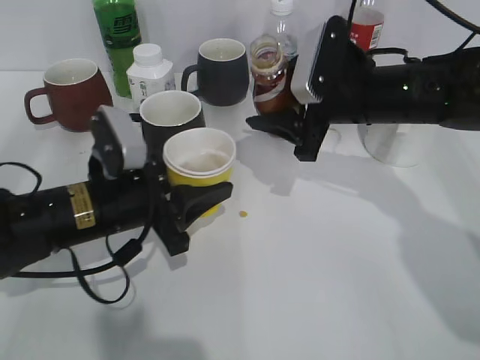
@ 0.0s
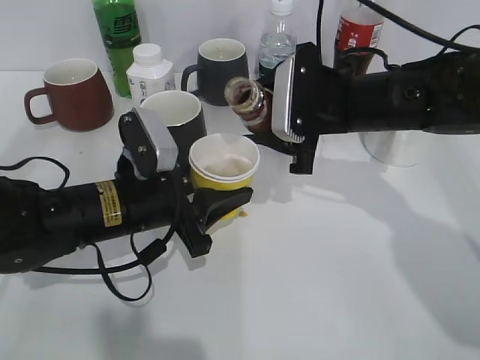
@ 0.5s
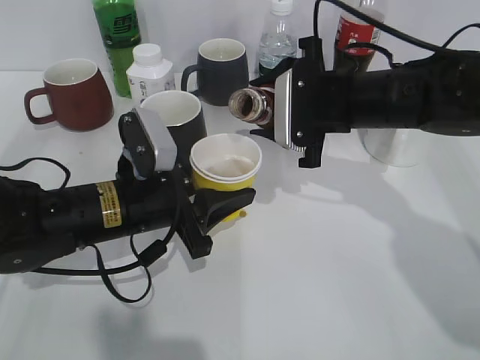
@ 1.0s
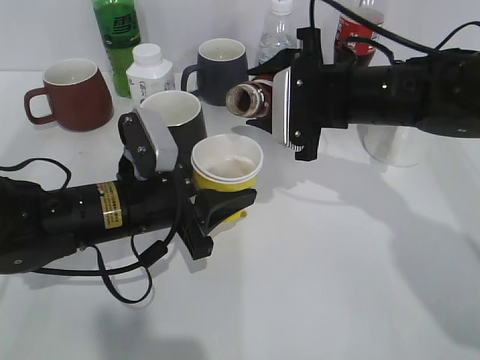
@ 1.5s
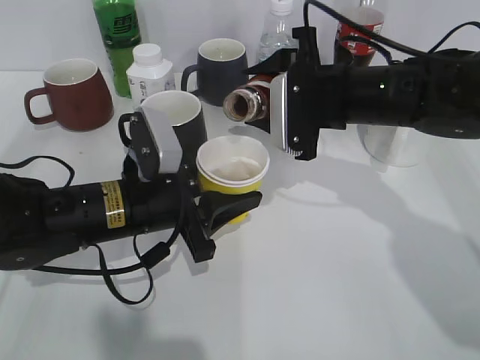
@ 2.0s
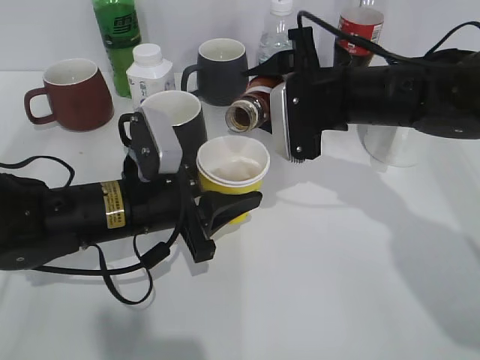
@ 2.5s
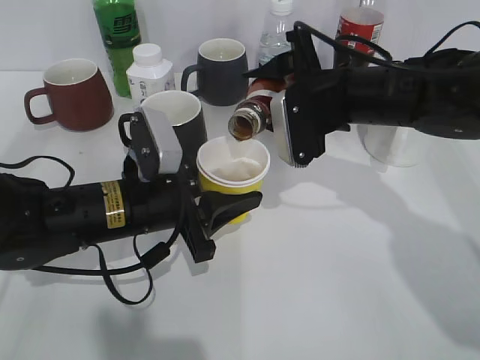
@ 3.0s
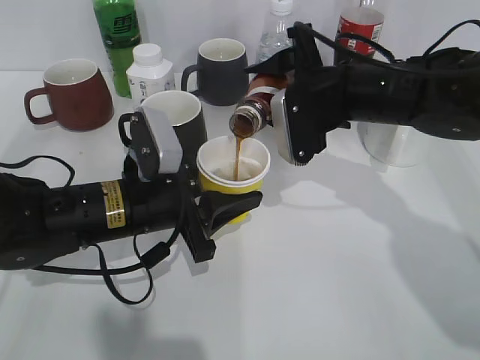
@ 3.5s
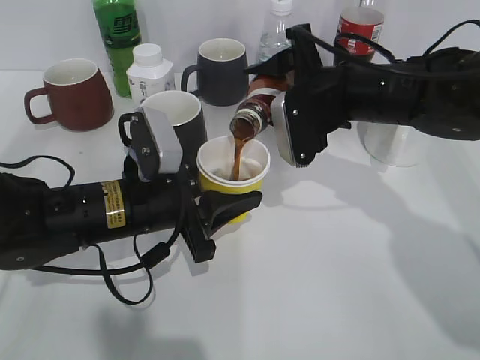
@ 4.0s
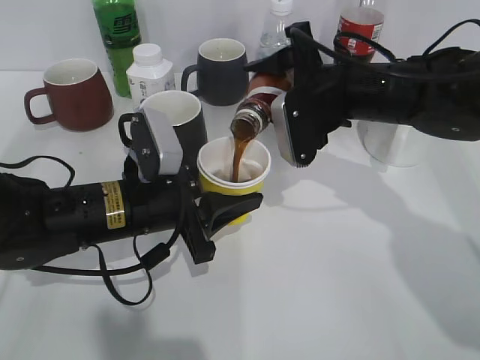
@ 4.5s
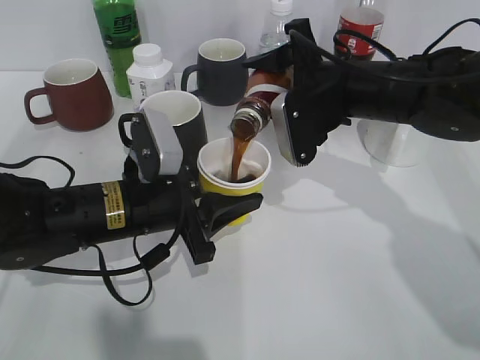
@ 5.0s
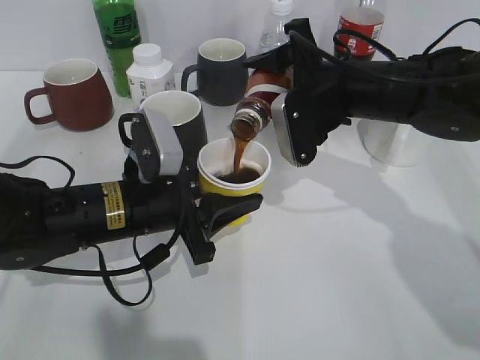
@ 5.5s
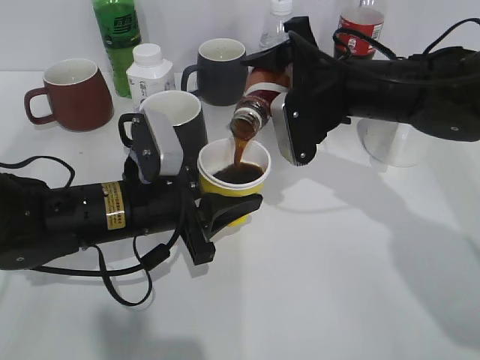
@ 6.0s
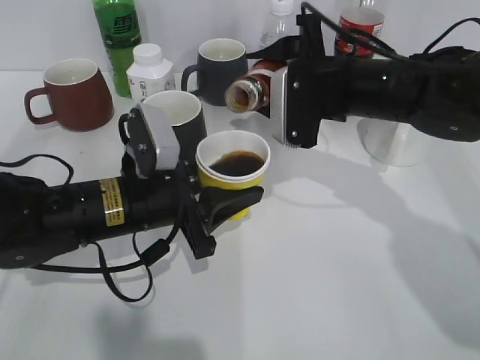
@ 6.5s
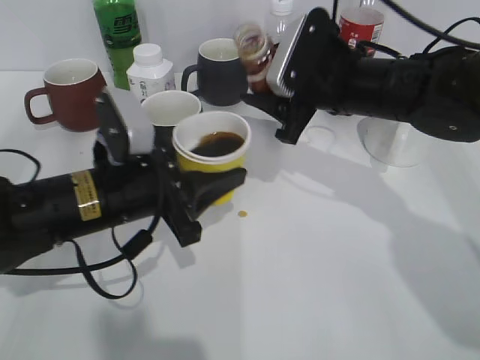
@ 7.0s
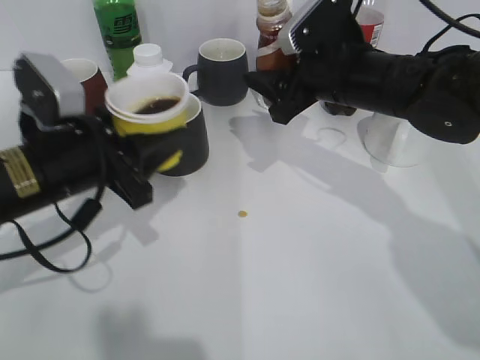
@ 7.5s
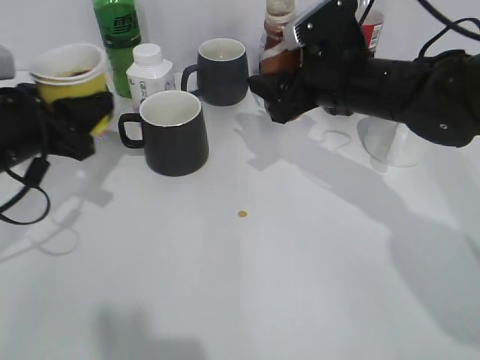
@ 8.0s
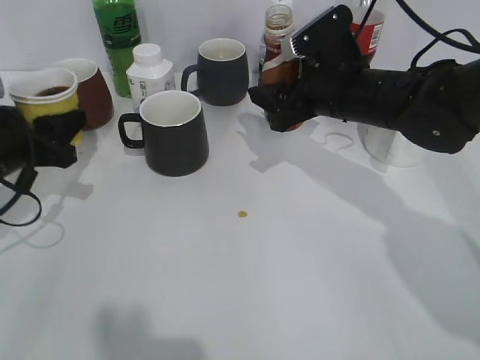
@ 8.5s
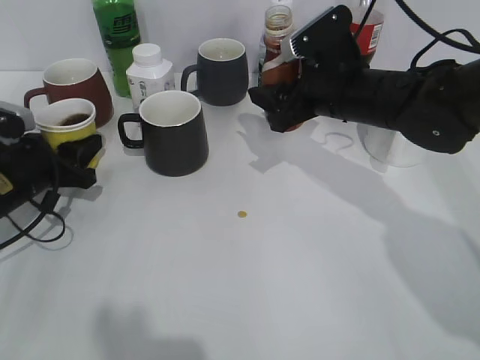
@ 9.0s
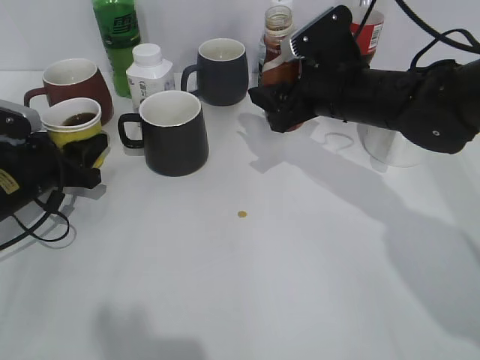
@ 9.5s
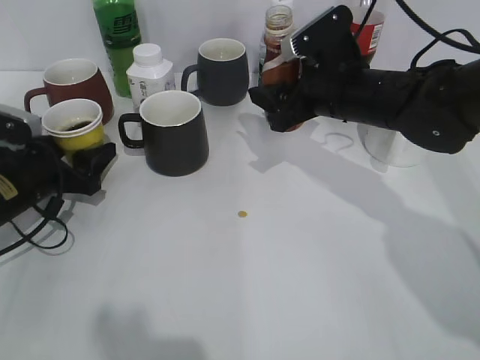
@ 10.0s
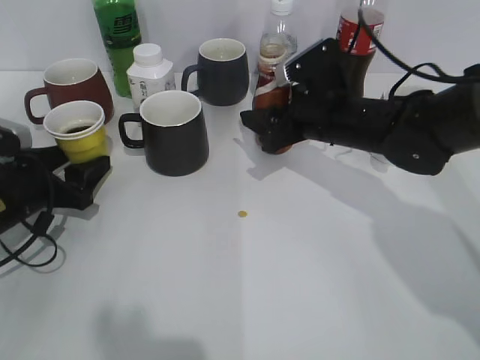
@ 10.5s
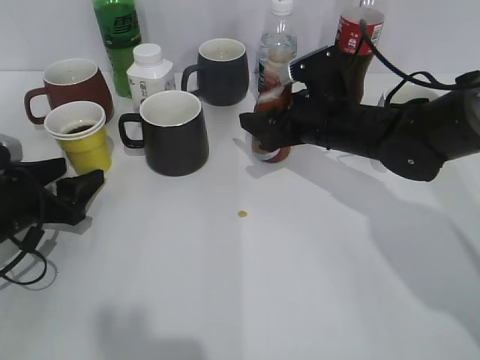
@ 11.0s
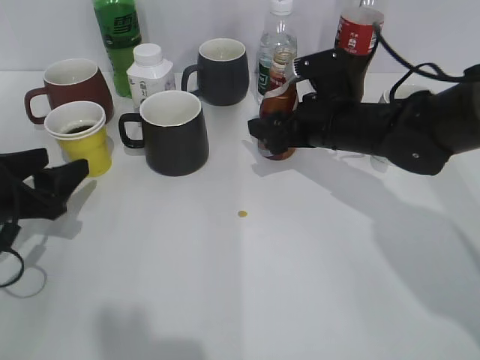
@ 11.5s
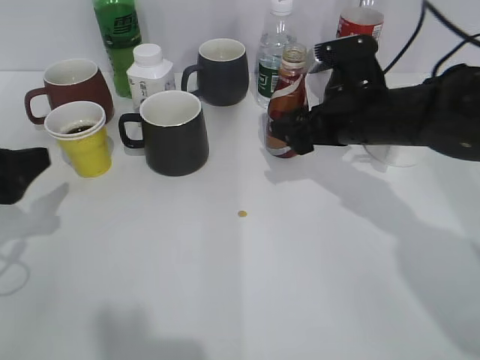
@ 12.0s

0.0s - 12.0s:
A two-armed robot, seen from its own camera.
Step, 0.0s - 6.0s: Pour the coffee from bottle to cup with right gripper.
Step, 7.0s - 10.0s: Place the yellow paper cup on the table with left gripper.
2.0s - 4.0s: The grippers stay close to where they were, moving slightly.
4.0s - 6.0s: The grippers move only a little.
6.0s - 8.0s: The left gripper is displaced to the left and upward by about 15 cm.
8.0s - 10.0s: The left gripper goes about 10 cm downward, and opens.
10.0s - 12.0s: The left gripper is displaced backward and upward by approximately 10 cm; the right gripper opens its fingers.

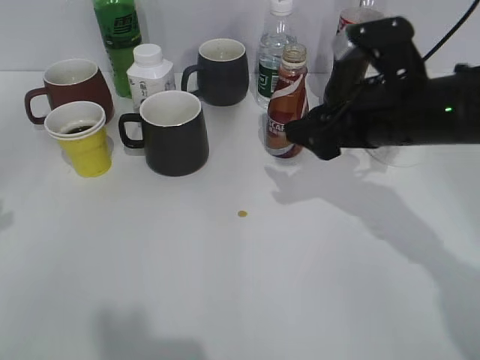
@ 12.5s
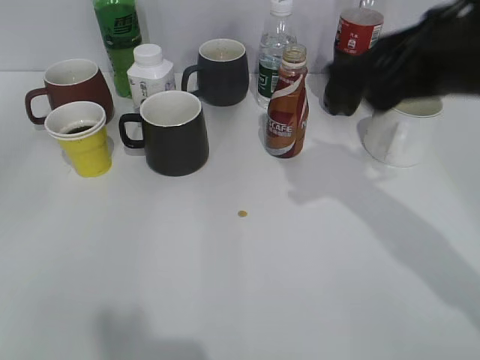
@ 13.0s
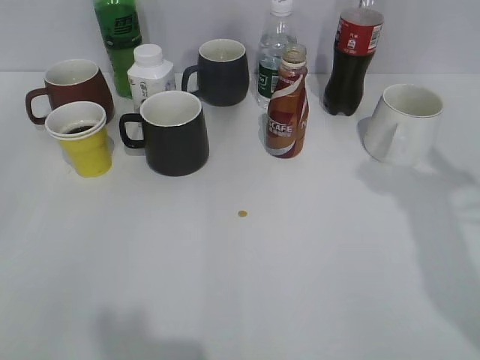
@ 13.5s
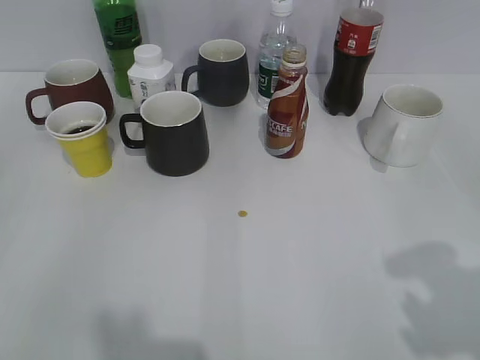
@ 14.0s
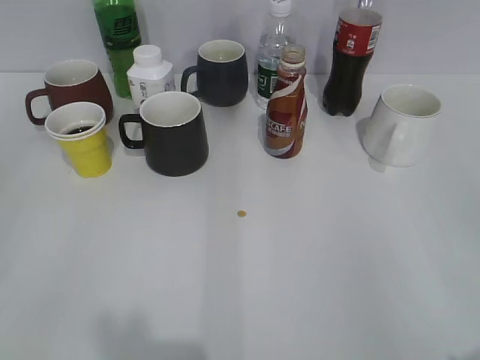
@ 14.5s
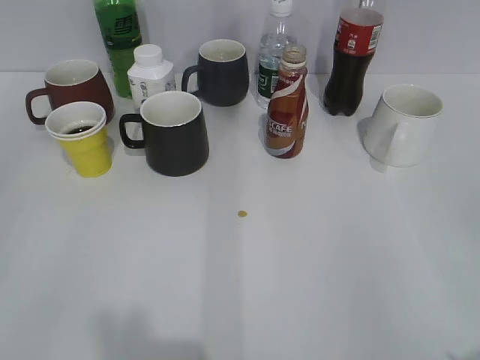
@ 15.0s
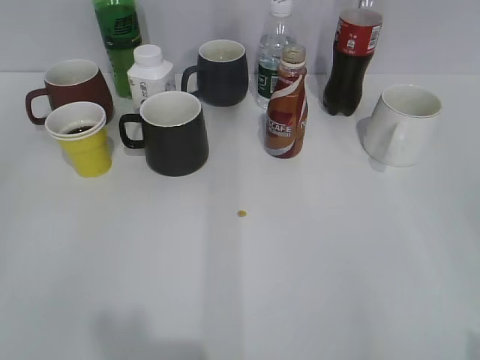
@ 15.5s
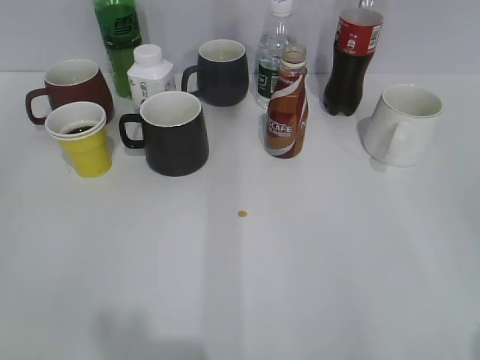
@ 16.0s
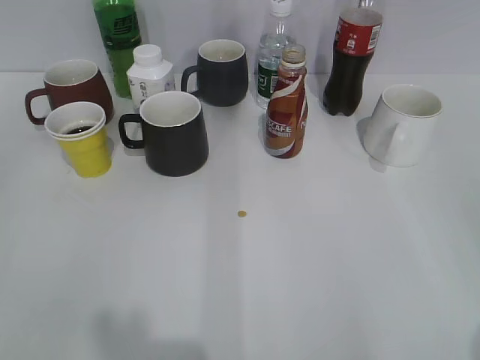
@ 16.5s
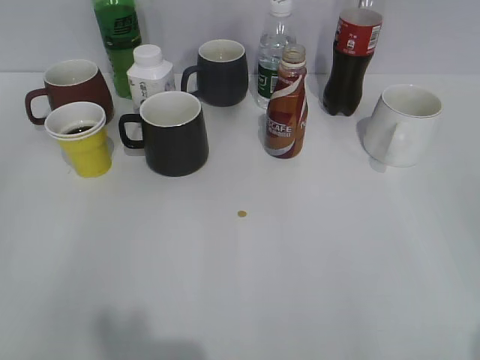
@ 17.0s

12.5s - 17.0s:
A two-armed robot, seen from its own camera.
12.5s - 14.5s: The right gripper heads backward and to the right, covering about 35 cm; the left gripper moves backward, about 20 cm.

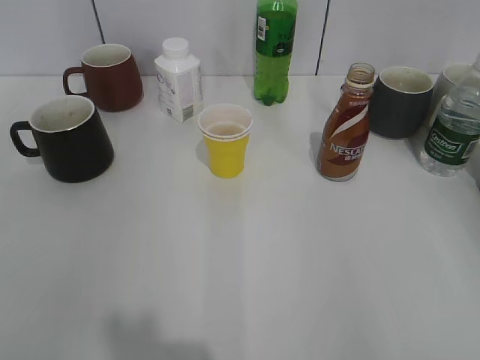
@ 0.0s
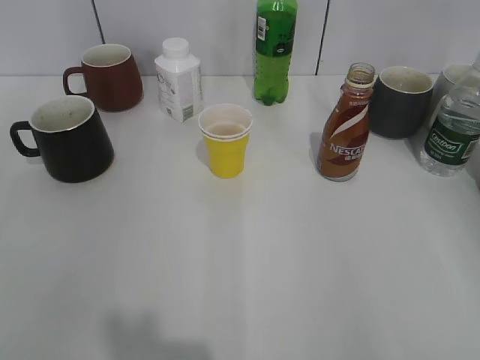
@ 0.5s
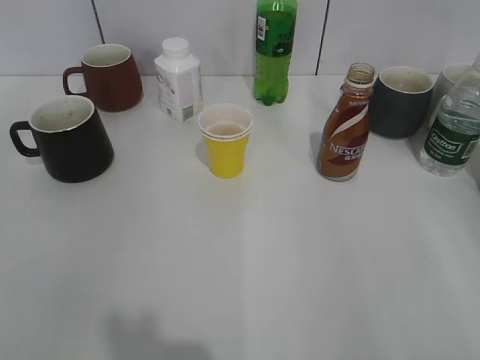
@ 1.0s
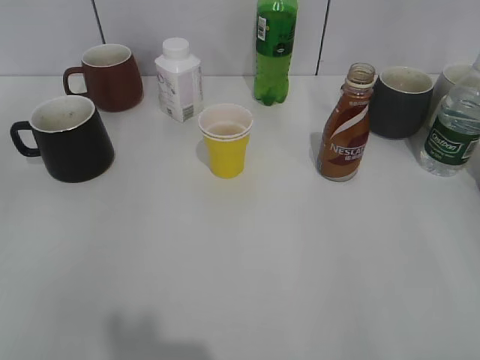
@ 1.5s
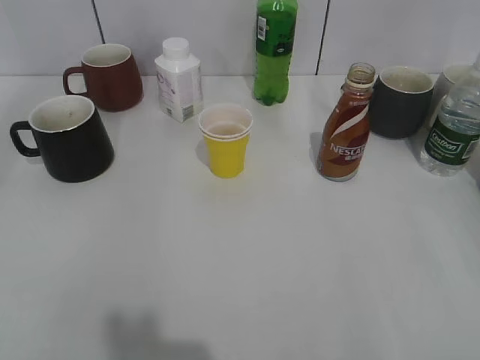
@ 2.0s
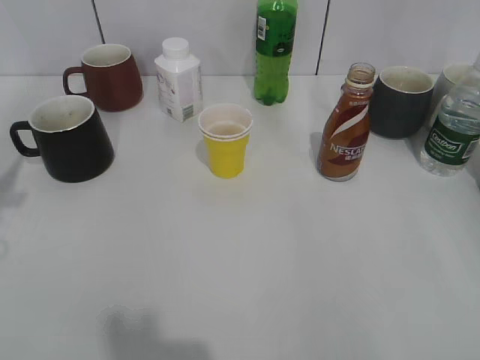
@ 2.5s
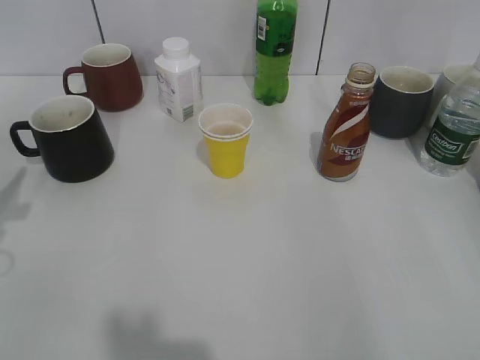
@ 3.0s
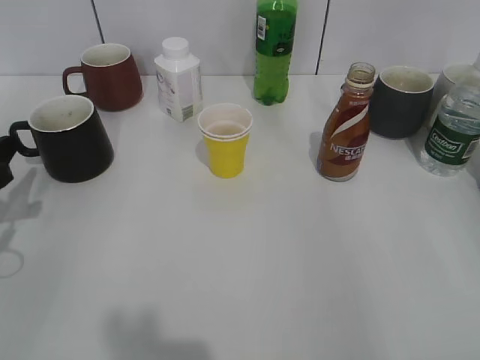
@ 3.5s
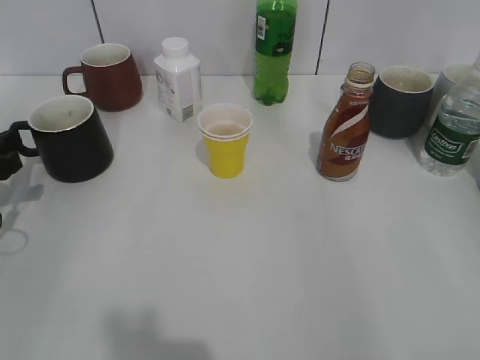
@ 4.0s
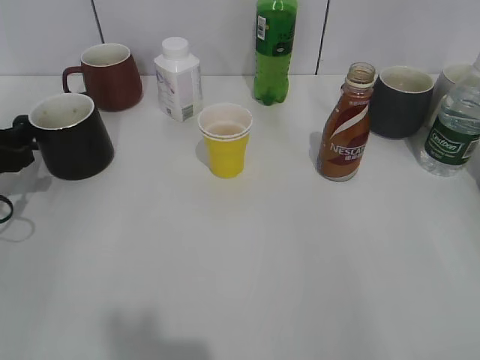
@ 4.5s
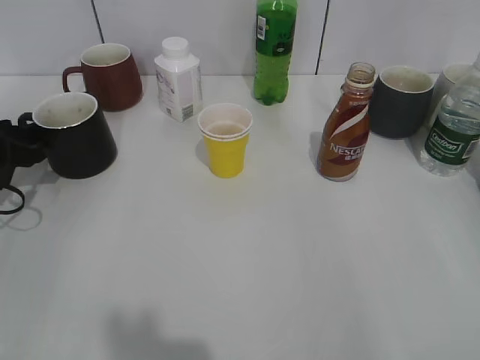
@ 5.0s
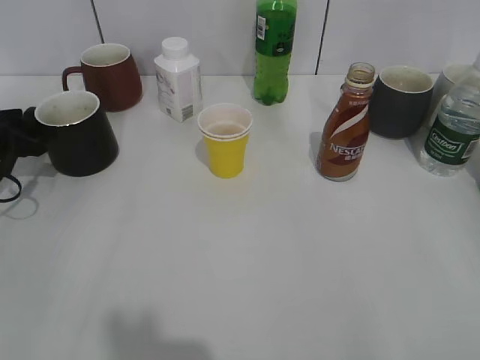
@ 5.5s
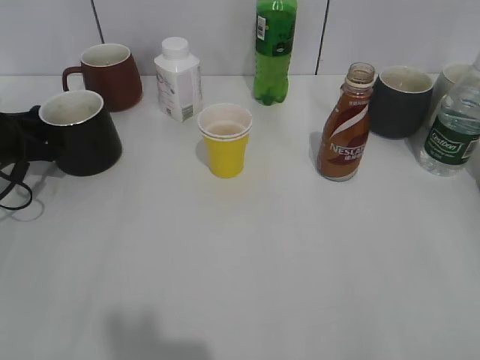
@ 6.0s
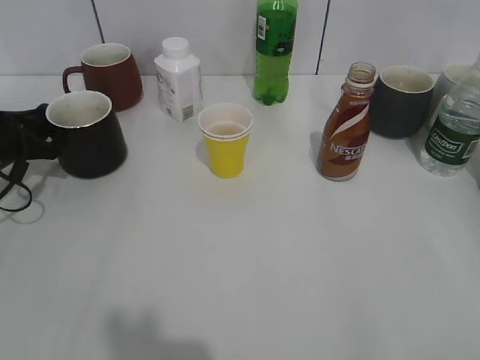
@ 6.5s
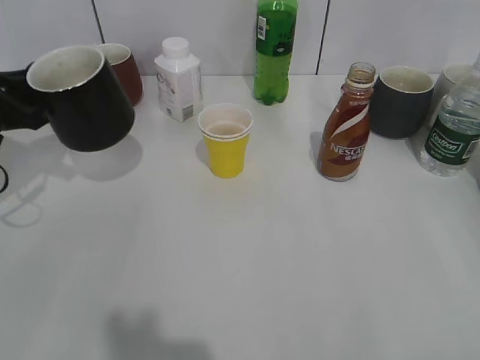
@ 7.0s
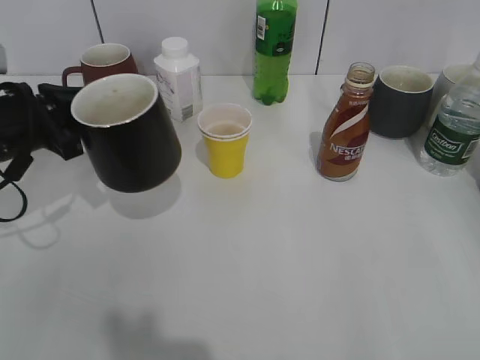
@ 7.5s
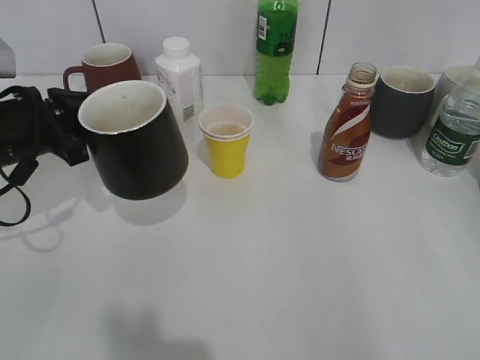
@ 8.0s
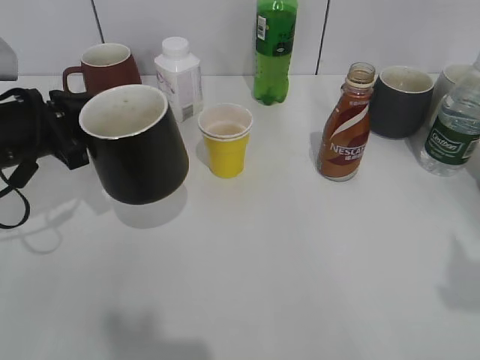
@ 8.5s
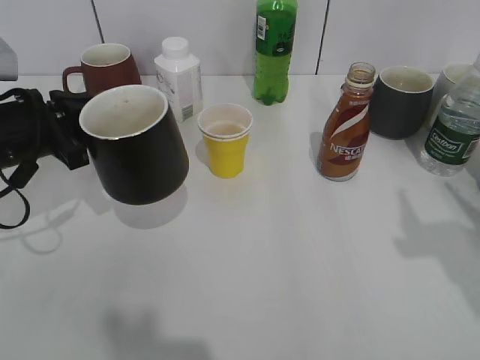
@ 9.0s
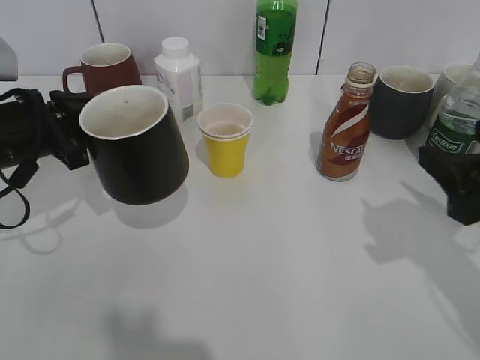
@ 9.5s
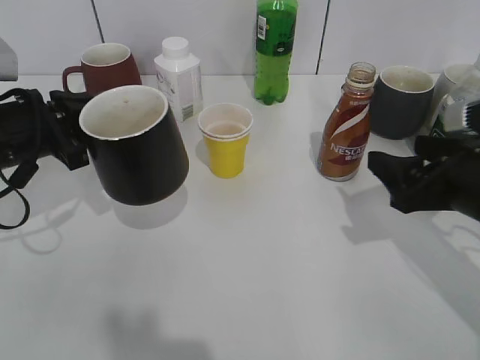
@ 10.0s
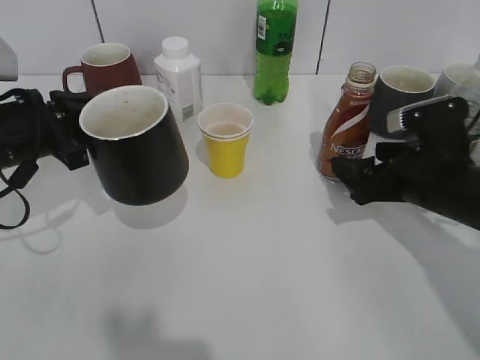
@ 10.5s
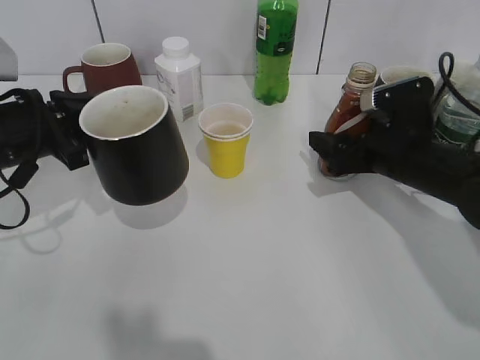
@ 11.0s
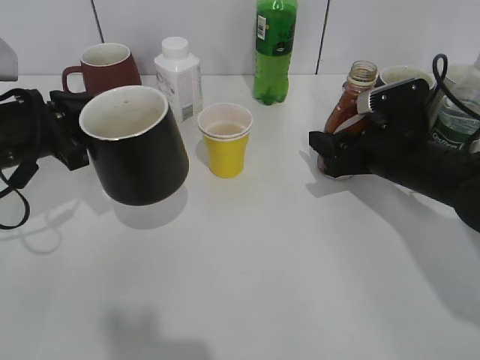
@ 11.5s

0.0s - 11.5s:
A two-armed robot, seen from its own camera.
Step, 1.0s - 6.0s: Grasp the black cup with left gripper.
Step, 6.5s - 8.0s: Lift the black cup with left gripper.
2.0s - 4.0s: The left gripper is displaced downward and forward by some 25 cm.
4.0s - 6.0s: The left gripper is displaced forward by about 10 cm, and closes its fingers.
6.0s - 7.5s: The left gripper heads upward, to the right and backward, covering approximately 10 cm.
7.5s - 9.5s: The right gripper heads forward, covering about 20 cm.
9.5s - 11.5s: The right gripper travels forward, downward and to the left by about 20 cm, and closes its fingers.
